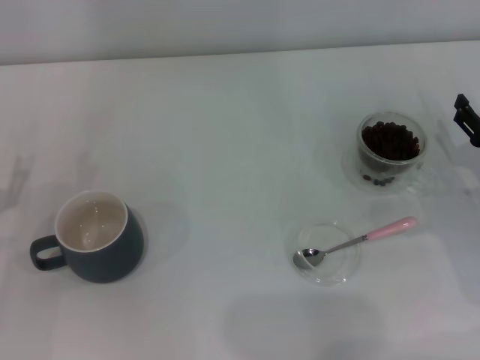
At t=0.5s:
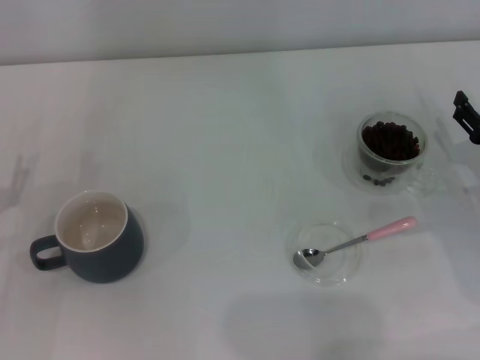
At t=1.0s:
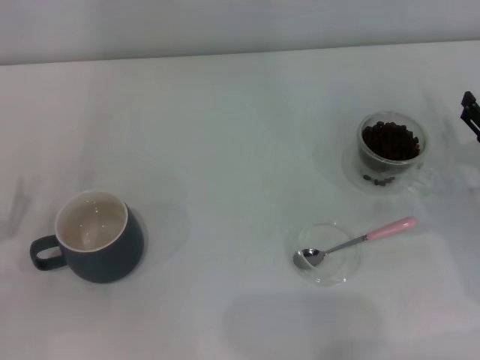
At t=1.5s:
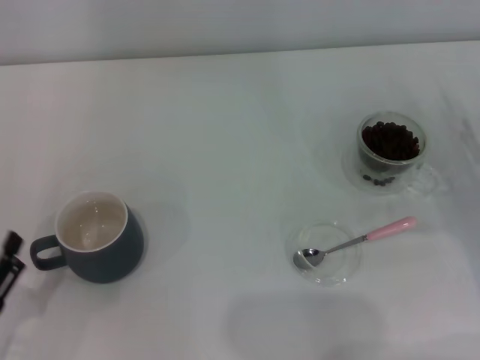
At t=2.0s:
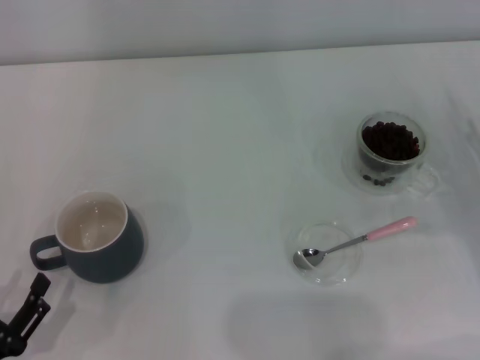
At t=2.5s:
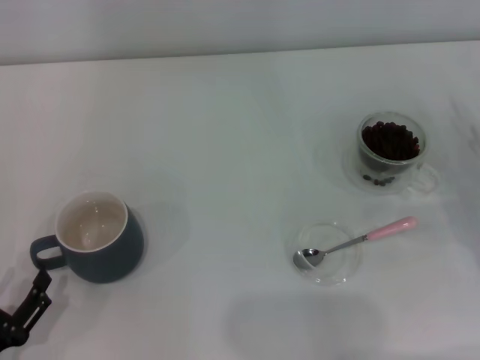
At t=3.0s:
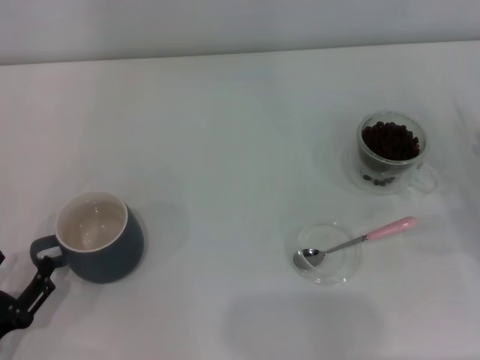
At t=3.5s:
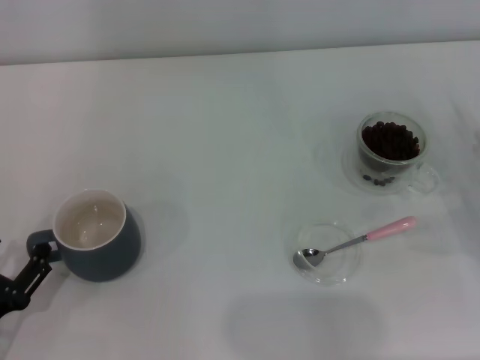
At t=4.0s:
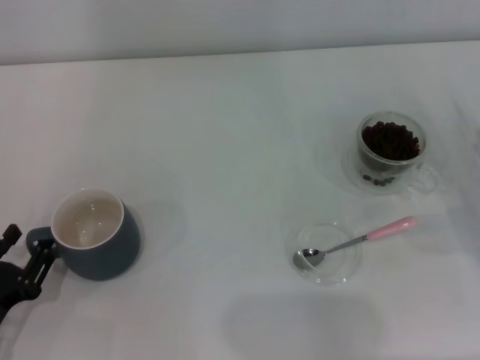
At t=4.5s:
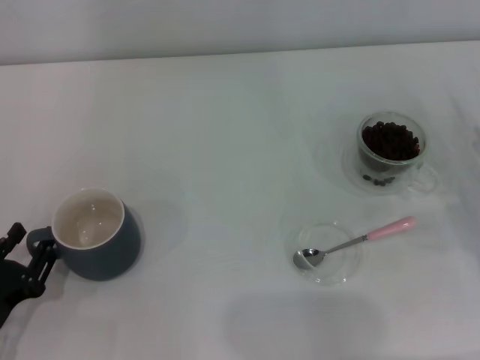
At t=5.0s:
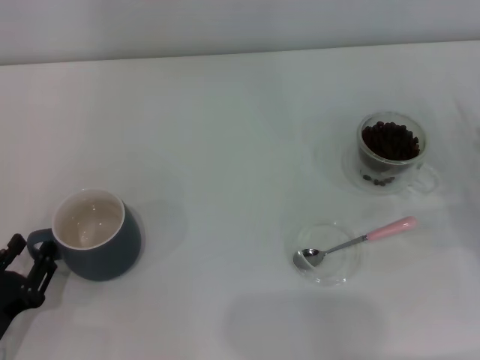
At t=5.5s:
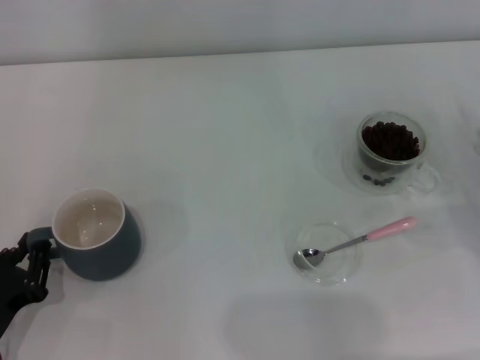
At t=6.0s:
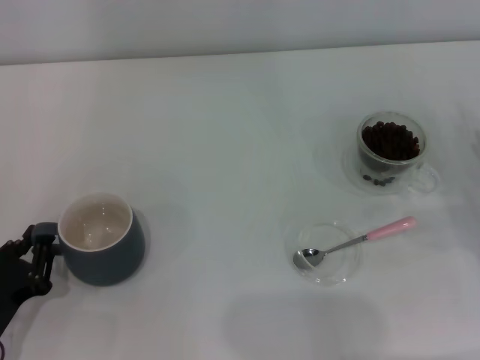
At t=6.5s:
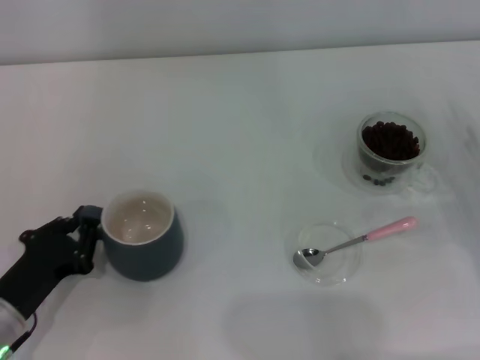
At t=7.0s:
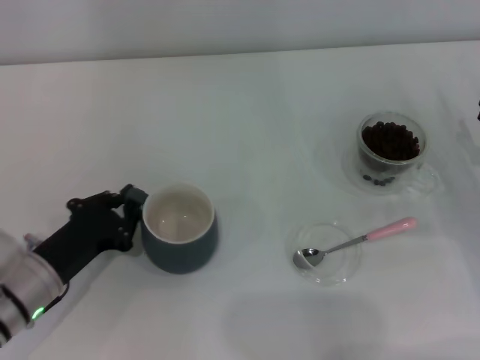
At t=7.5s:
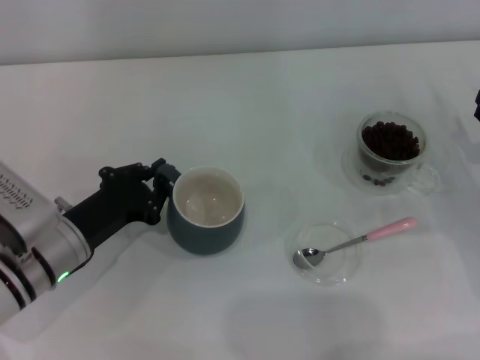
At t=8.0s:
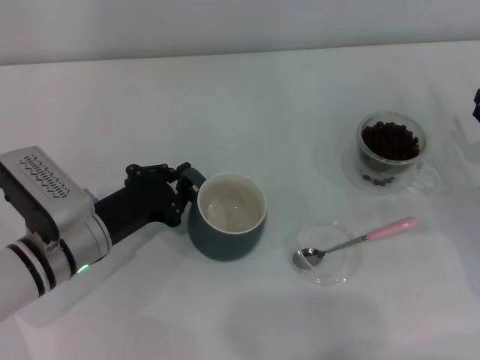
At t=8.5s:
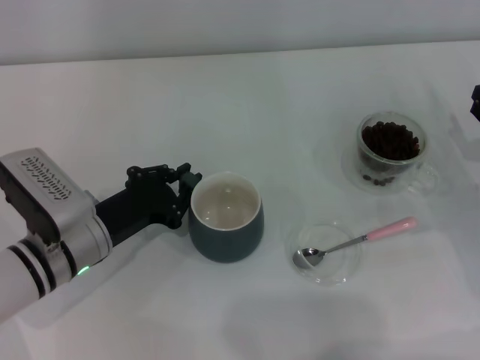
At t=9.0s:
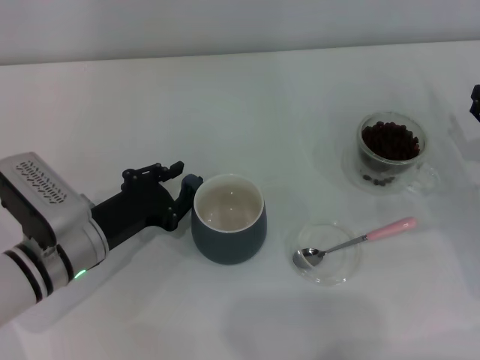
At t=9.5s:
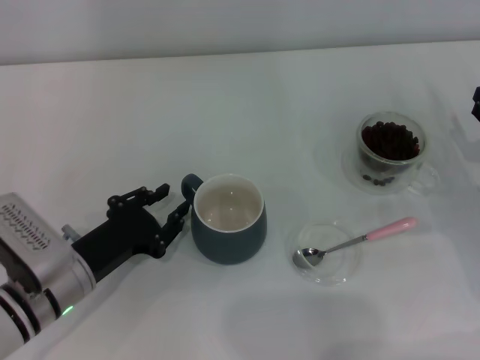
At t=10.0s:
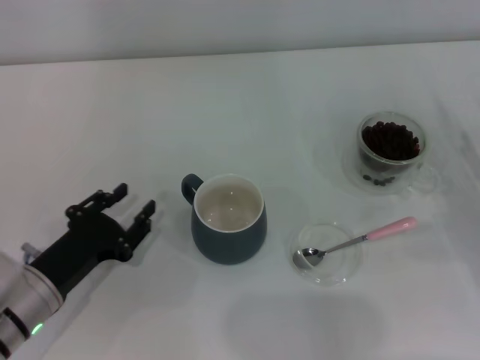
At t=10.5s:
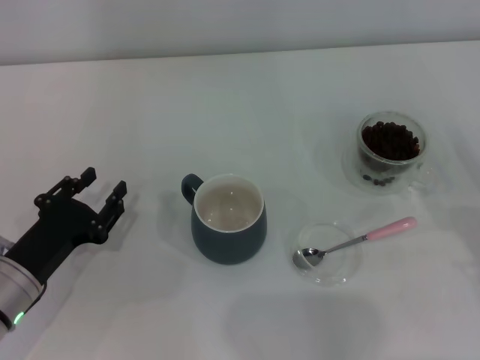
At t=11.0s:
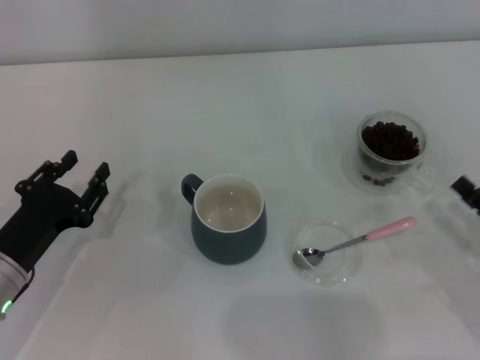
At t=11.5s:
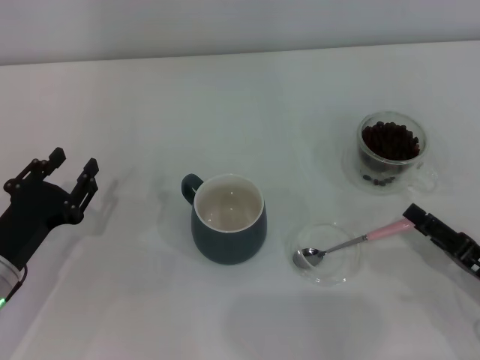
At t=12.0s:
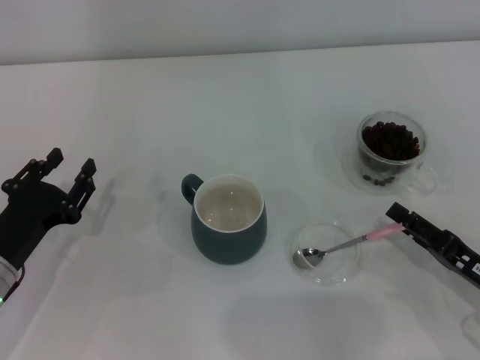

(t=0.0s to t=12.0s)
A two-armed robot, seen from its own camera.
Task of the whole recording: Use a pink spoon to take out the coffee beans from the glass and pour them into the gray cup.
Step, t=0.0s - t=9.5s: Move the cup to the center of view with the left gripper.
t=0.0s - t=2.0s: The left gripper moves backward, roughly 15 cm.
t=2.0s - t=4.0s: The left gripper goes roughly 5 cm forward.
t=4.0s - t=6.0s: The left gripper closes its fingers.
t=6.0s - t=8.0s: The left gripper heads forward and to the right, covering approximately 15 cm.
t=8.0s - t=10.0s: The left gripper goes some 5 cm backward, and opens.
t=10.0s - t=12.0s: The right gripper shifts some 10 cm backward and to the left.

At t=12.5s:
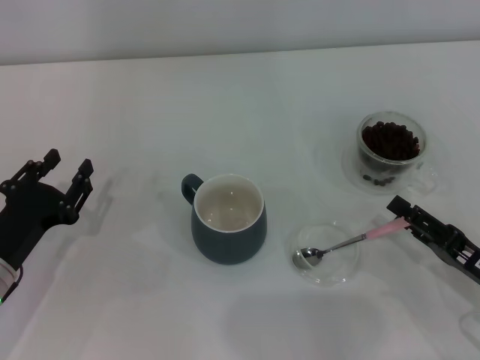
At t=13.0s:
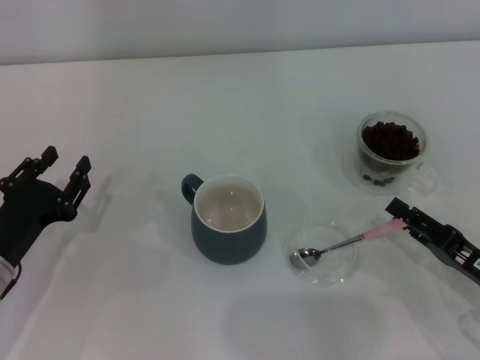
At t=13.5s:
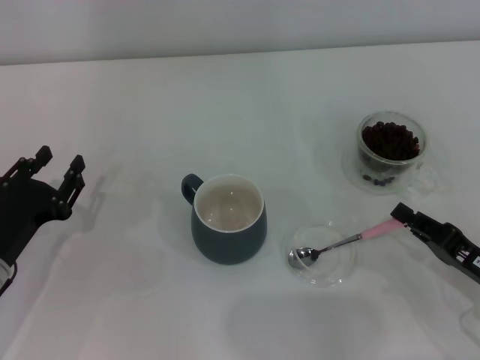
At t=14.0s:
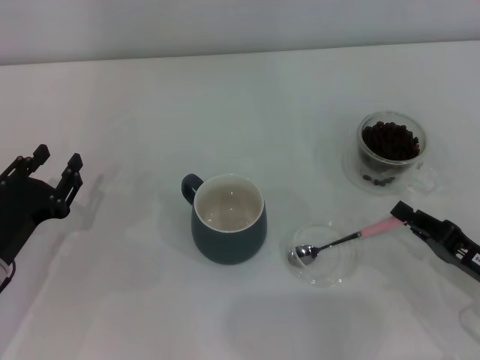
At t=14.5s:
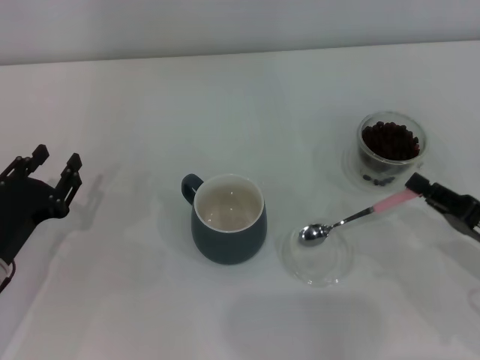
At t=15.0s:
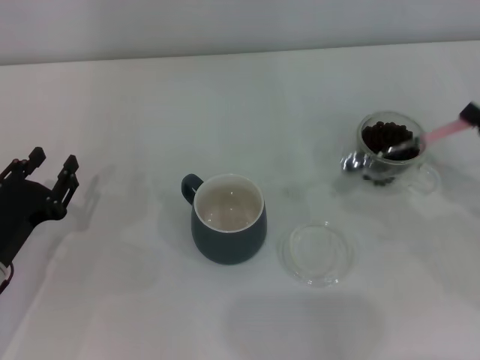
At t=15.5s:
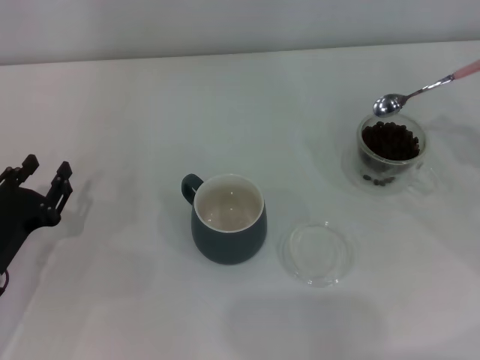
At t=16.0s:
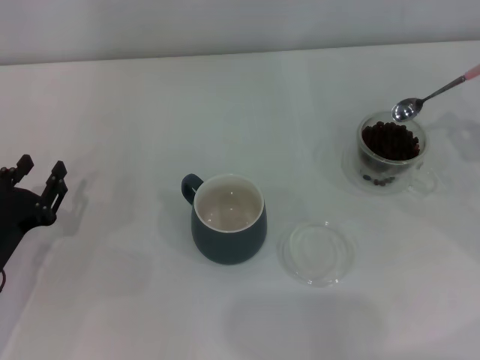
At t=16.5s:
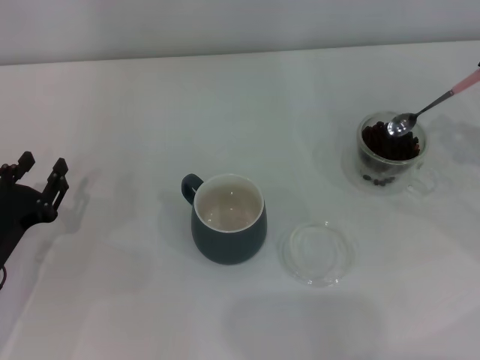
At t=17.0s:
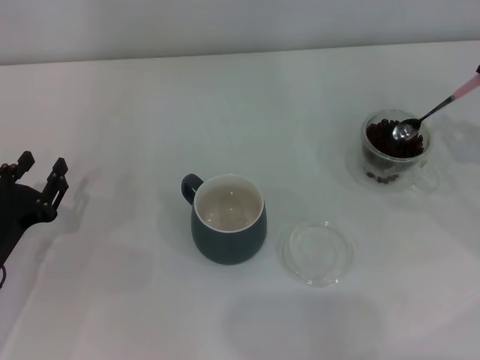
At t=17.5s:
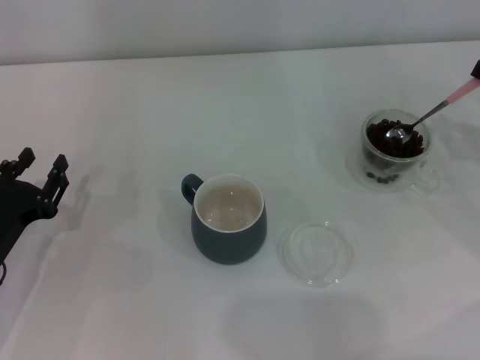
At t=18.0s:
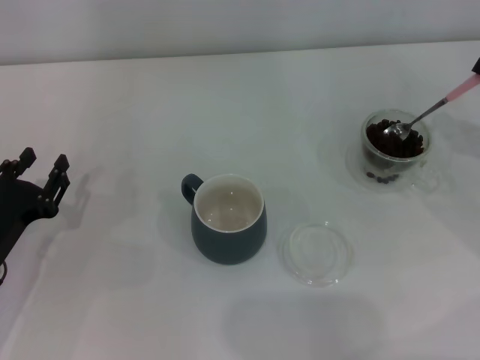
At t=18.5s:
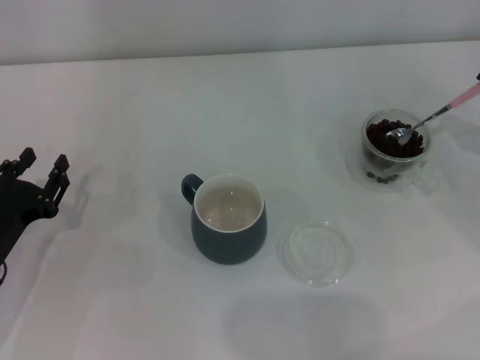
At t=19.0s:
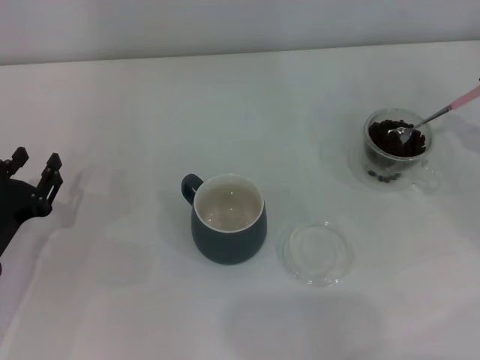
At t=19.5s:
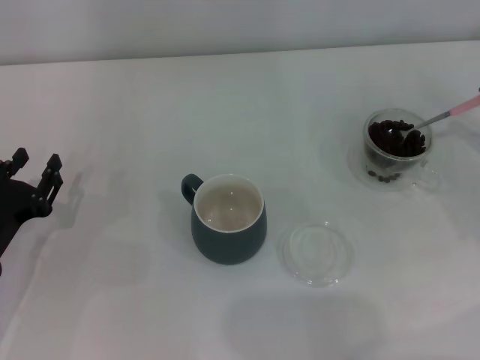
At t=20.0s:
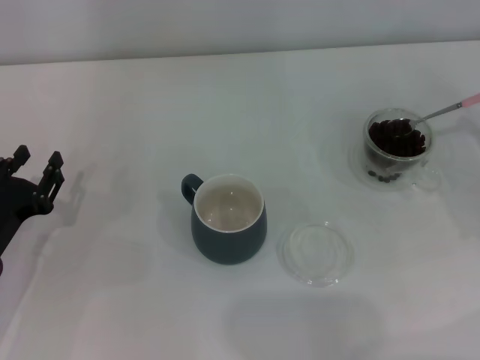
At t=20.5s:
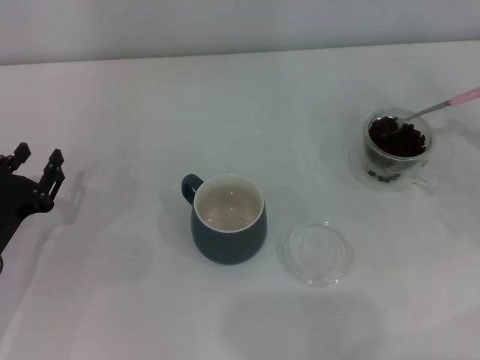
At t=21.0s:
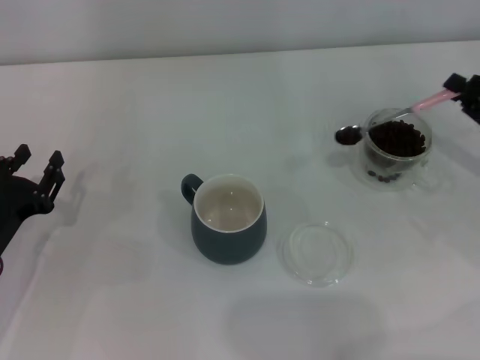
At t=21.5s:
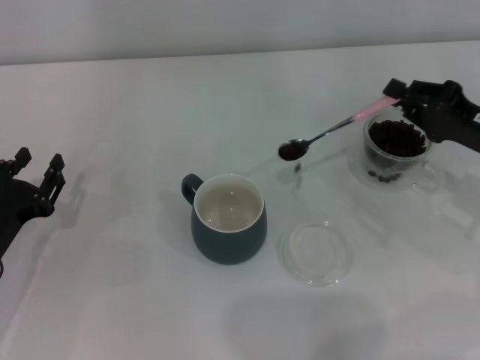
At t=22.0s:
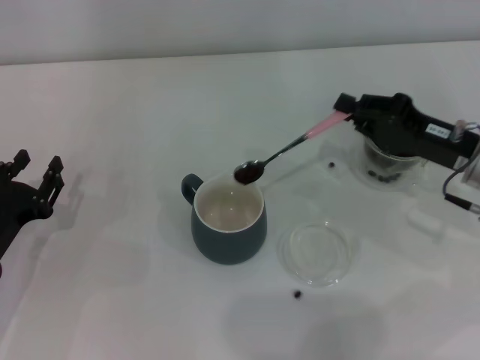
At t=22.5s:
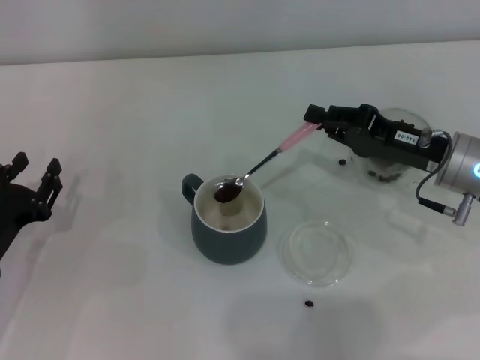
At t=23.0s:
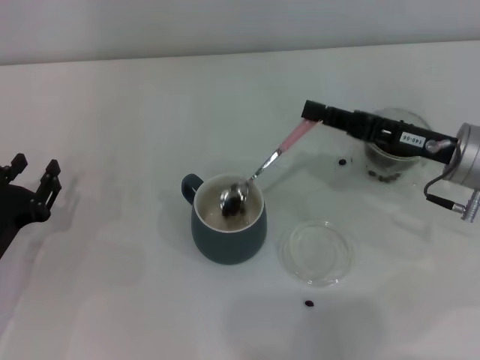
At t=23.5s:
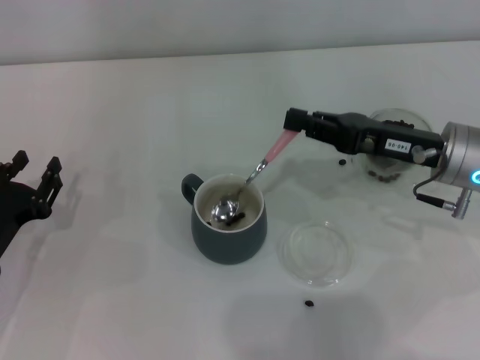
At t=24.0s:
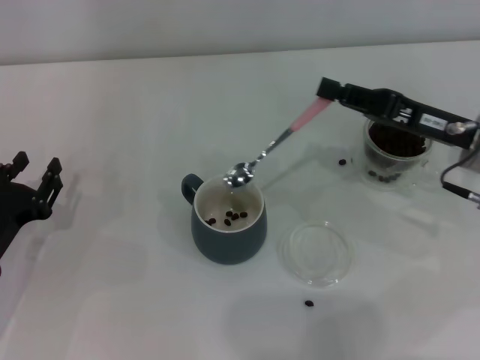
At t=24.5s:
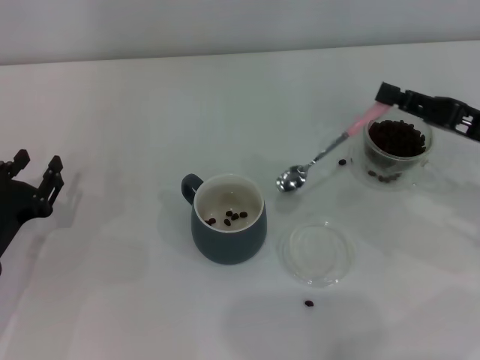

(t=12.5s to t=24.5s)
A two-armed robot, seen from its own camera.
Task of the whole recording: Use a pink spoon to take out the coffee beans from the glass and pour them into the gray cup.
Step, t=12.5s - t=14.5s: Pick up the spoon with the right gripper.
Step, t=15.0s - t=23.0s: Scoop a spoonful of beans into the cup with the right gripper.
t=12.5s - t=14.5s: The right gripper closes.
t=14.5s - t=16.5s: The right gripper shifts some 15 cm forward, upward and to the right.
t=20.5s - t=22.5s: The right gripper travels to the left by roughly 15 cm.
t=22.5s - t=24.5s: The right gripper heads to the right, covering approximately 5 cm.

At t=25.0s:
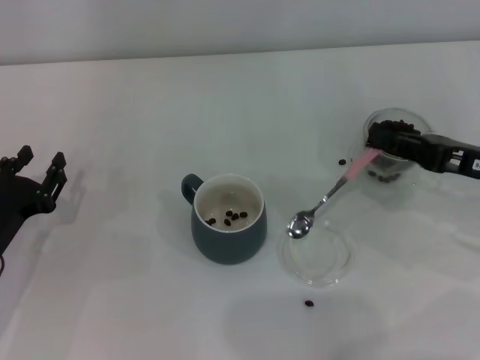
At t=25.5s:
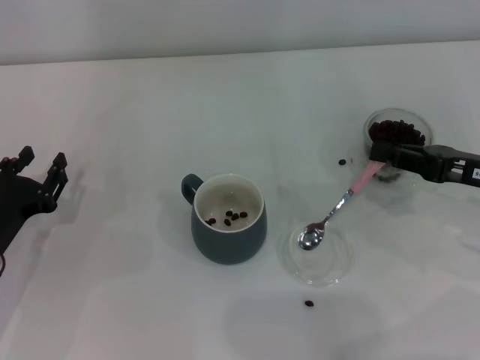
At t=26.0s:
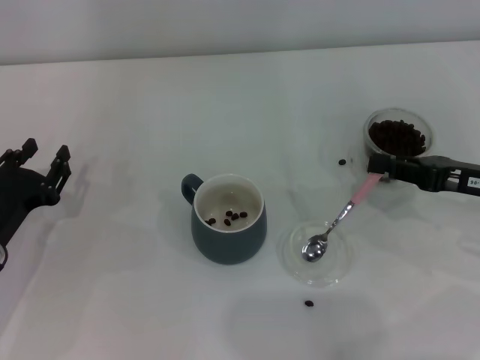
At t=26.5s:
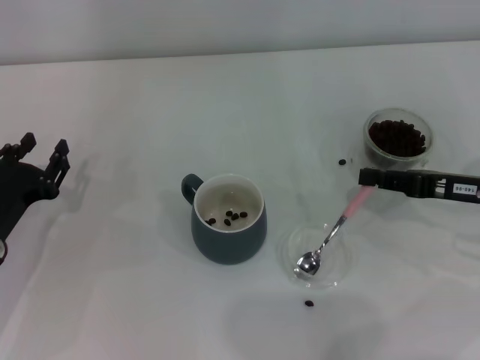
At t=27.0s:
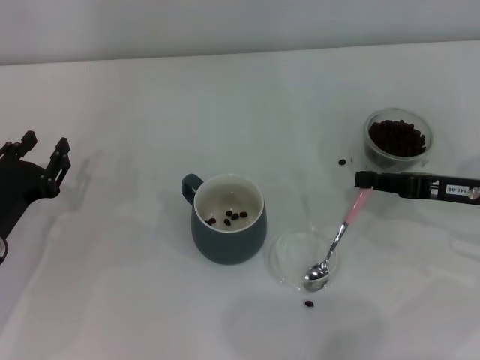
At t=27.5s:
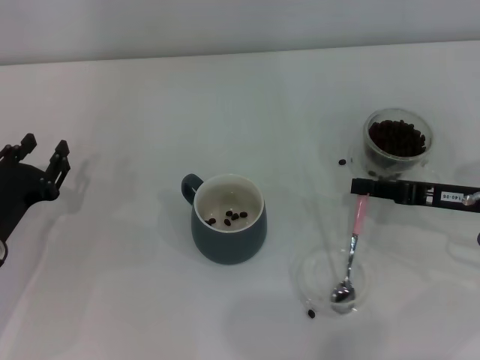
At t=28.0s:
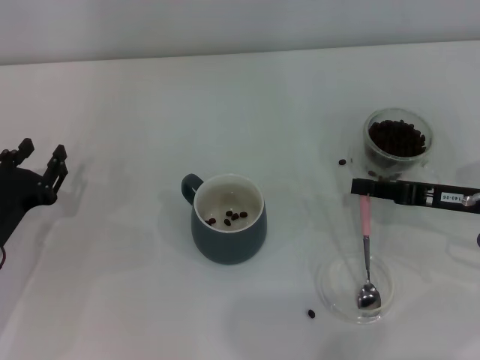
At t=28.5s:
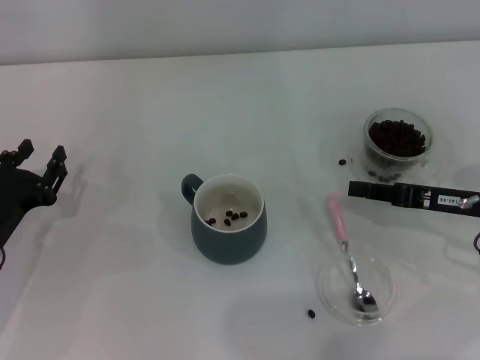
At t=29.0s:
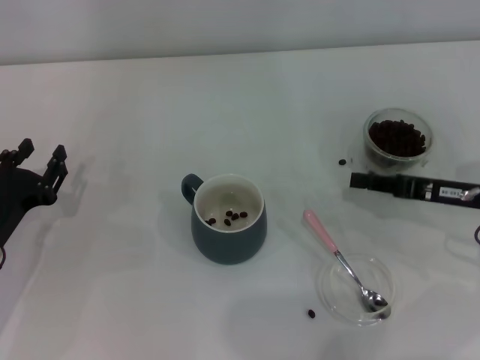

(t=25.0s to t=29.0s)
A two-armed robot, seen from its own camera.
Task of the whole recording: Use a pink spoon to take out the coffee beans from the glass and pour them into the gray cup.
Step, t=25.0s - t=28.0s: Place the spoon back in its original place with the right gripper.
t=25.0s - t=29.0s: The grippers move only a little.
